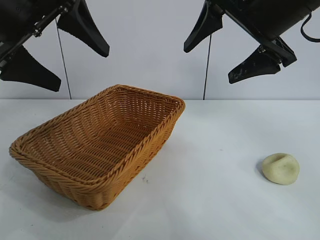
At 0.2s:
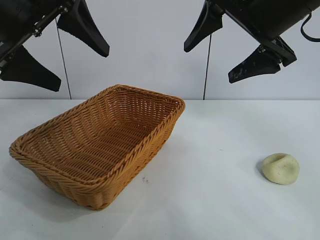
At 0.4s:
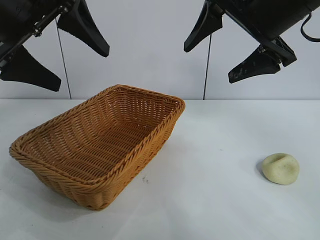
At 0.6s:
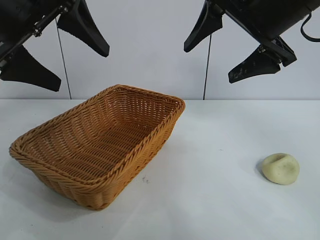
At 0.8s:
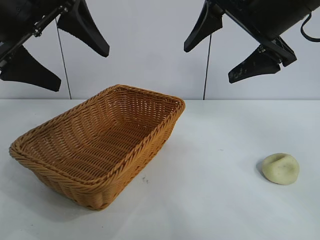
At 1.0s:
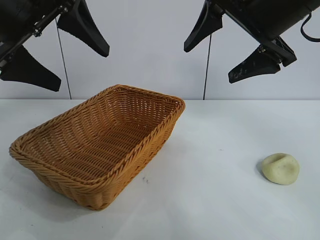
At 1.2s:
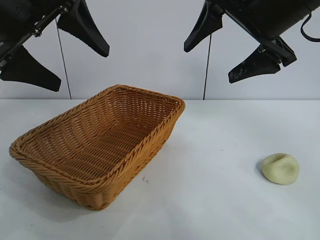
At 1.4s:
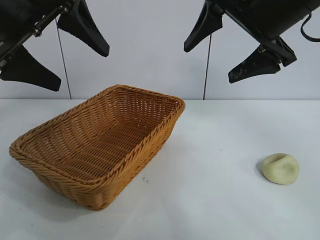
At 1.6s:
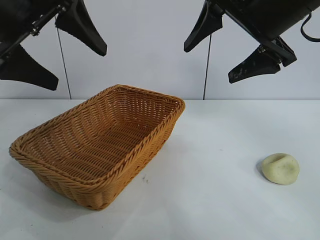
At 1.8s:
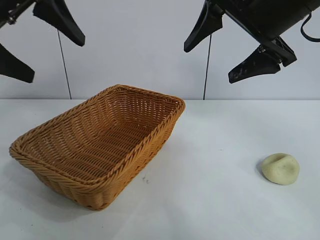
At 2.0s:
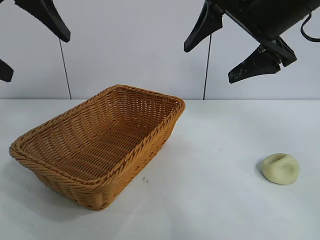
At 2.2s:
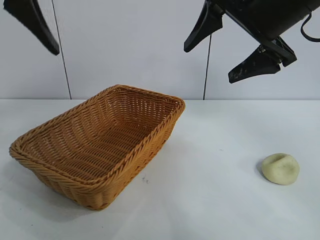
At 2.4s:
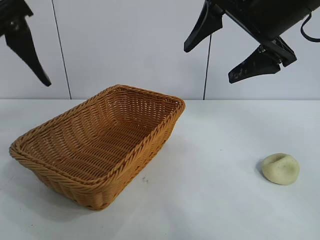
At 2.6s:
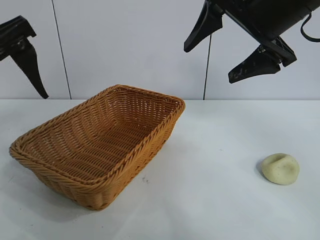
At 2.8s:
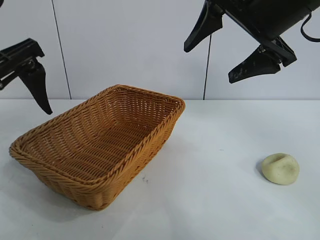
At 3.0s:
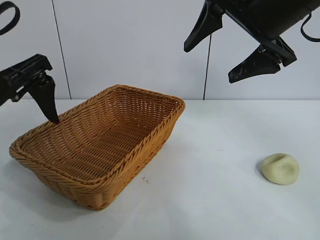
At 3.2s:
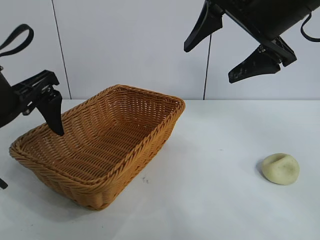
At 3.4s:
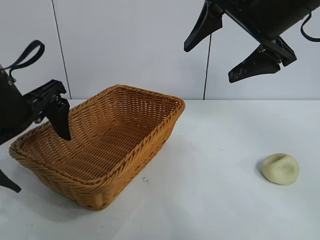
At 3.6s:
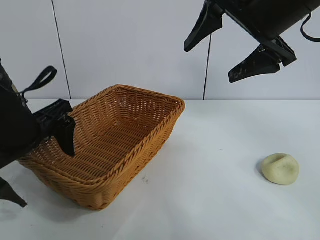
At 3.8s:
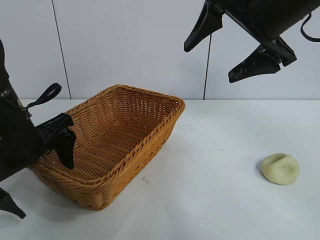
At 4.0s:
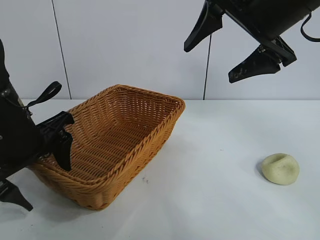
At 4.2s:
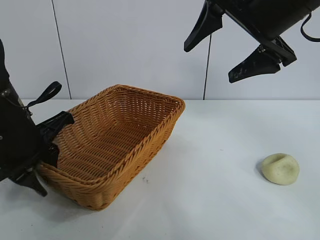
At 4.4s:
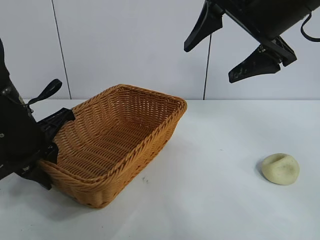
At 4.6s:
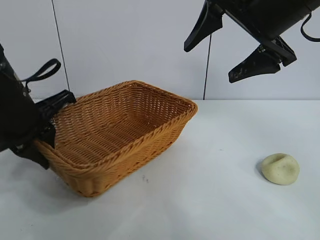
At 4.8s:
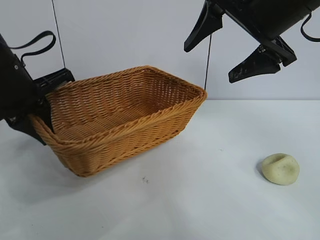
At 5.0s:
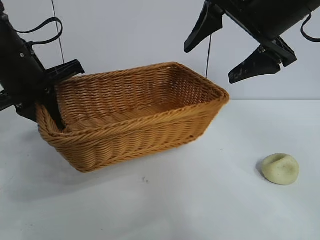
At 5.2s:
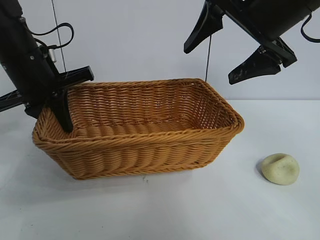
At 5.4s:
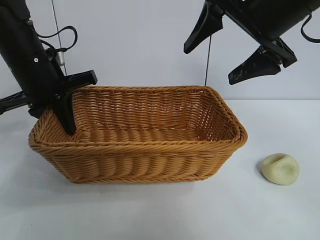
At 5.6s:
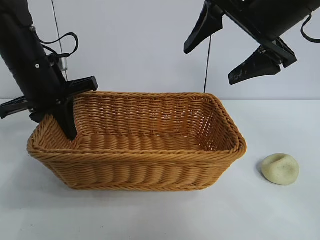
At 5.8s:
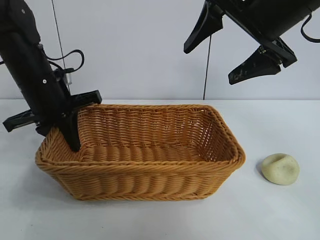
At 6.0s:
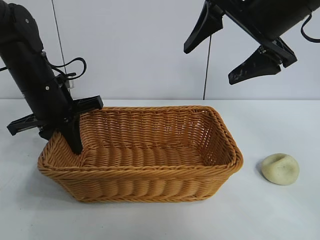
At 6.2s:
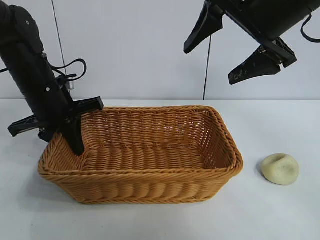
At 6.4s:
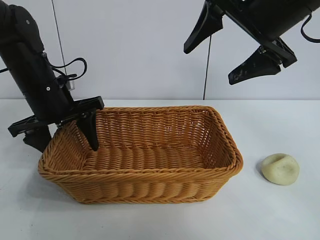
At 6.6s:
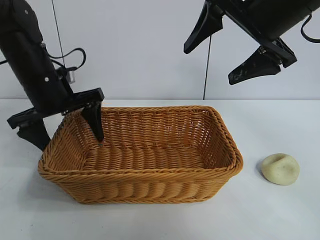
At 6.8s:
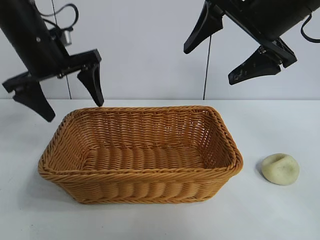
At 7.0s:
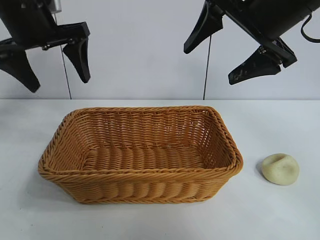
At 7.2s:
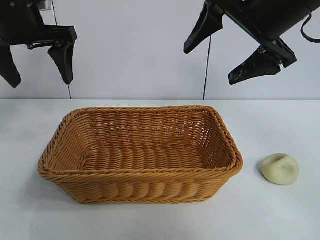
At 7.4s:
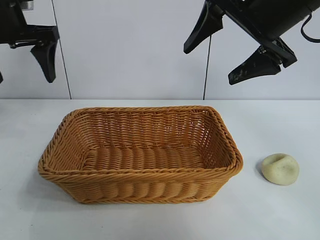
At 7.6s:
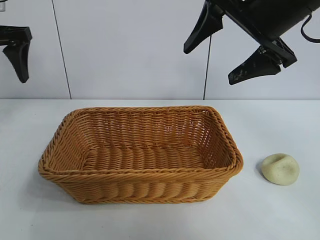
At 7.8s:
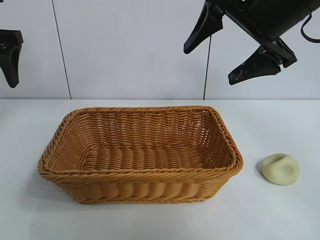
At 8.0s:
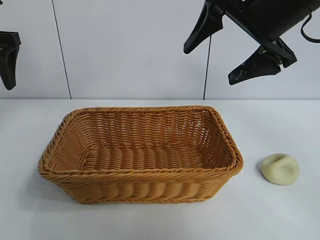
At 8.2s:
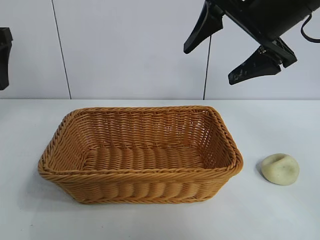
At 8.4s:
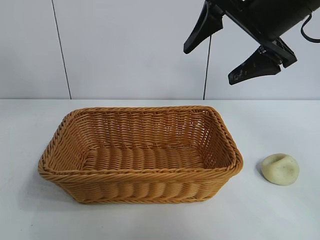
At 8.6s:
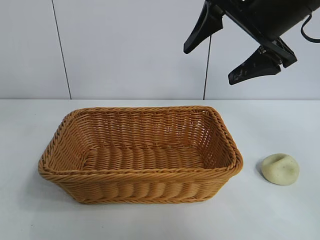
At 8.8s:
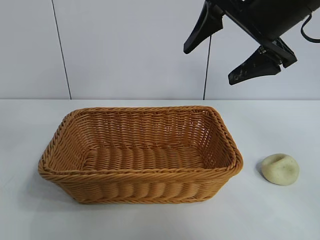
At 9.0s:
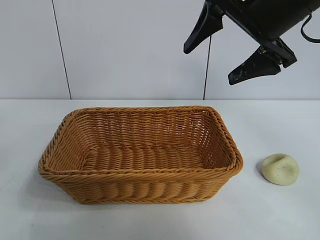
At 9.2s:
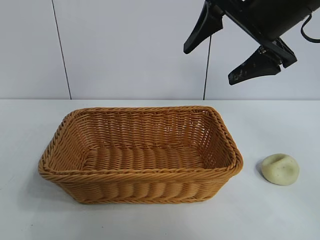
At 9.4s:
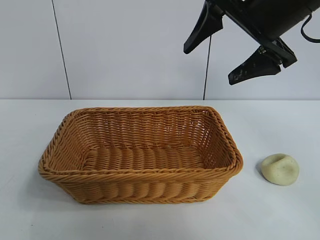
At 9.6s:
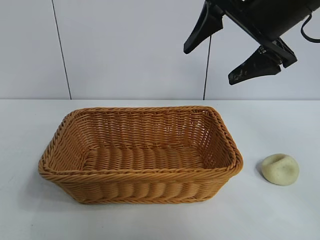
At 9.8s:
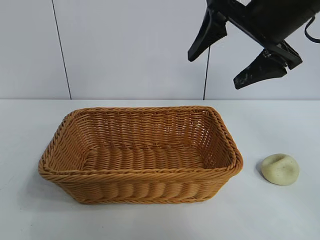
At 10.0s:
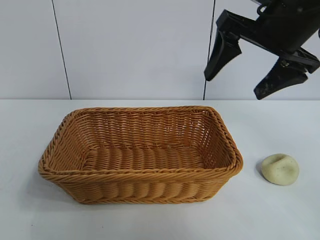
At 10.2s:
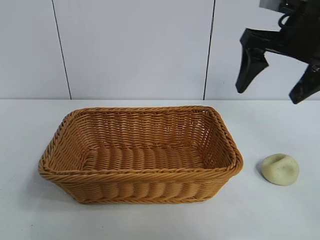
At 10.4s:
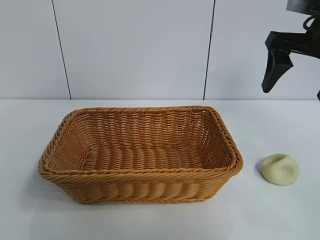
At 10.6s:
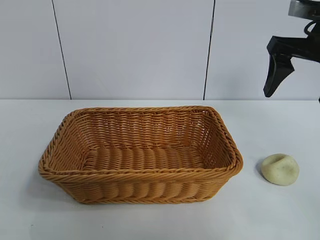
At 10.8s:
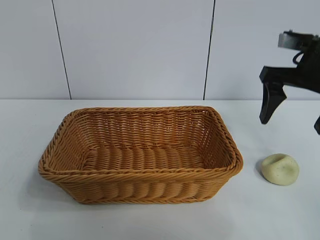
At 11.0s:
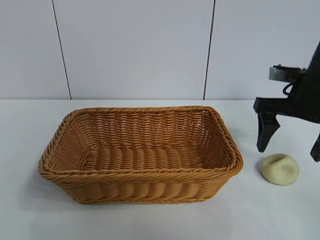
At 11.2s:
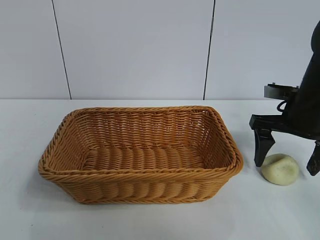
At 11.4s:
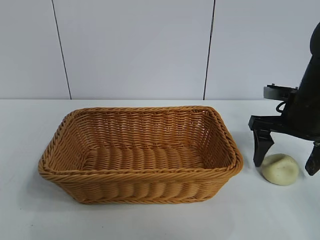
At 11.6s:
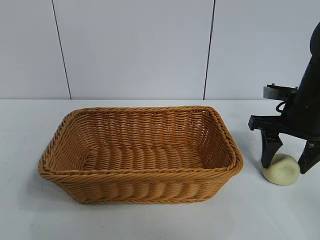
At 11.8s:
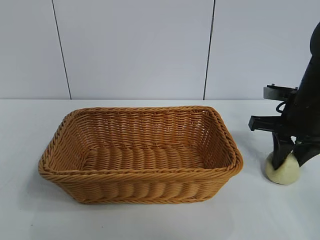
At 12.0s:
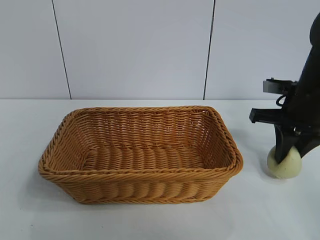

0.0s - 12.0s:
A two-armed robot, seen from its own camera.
Task of the whole recording: pick up the egg yolk pastry and put it into the basket.
Step, 1.6s - 4.2s: Grasp the basket with left gripper.
Step, 4.4s - 6.4s: Place the basket in the center of view with left gripper.
Step, 6.6s - 11.8s: Grasp egg yolk pastry with right gripper.

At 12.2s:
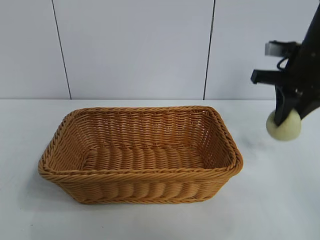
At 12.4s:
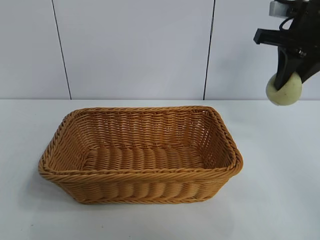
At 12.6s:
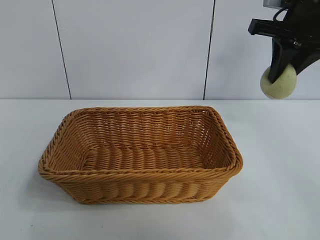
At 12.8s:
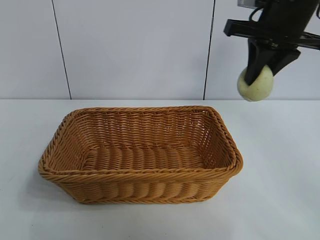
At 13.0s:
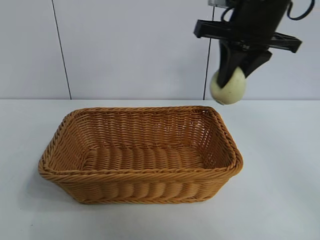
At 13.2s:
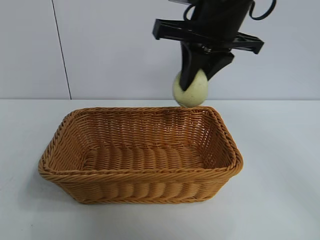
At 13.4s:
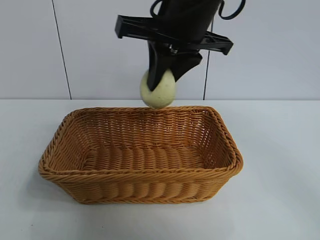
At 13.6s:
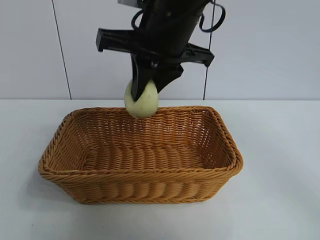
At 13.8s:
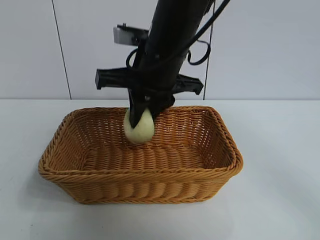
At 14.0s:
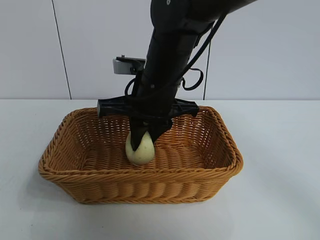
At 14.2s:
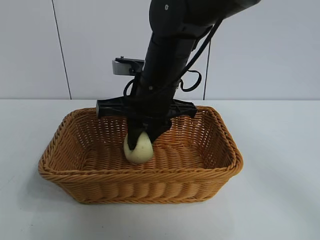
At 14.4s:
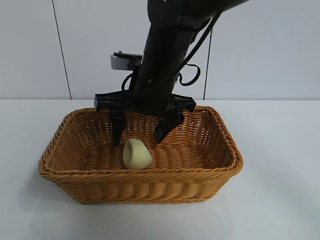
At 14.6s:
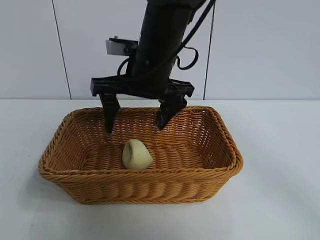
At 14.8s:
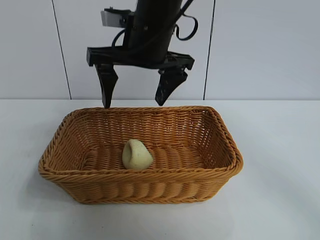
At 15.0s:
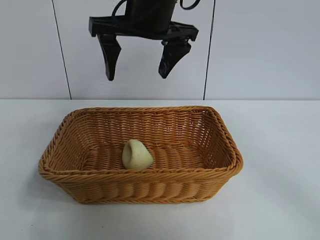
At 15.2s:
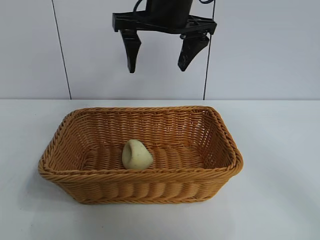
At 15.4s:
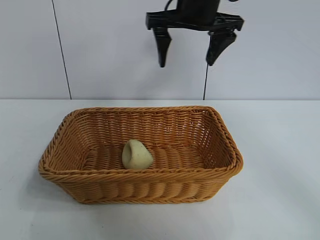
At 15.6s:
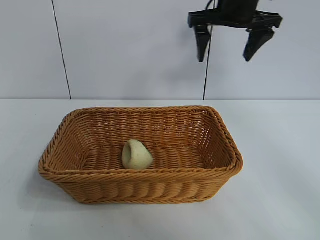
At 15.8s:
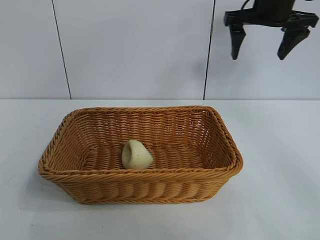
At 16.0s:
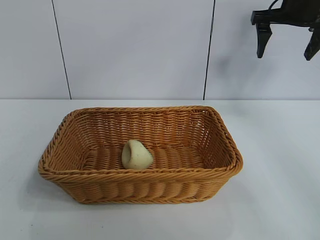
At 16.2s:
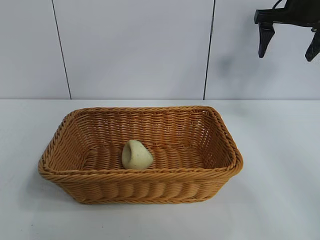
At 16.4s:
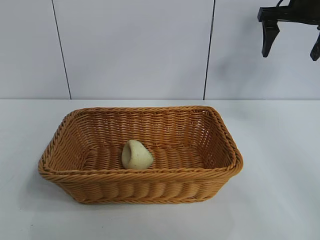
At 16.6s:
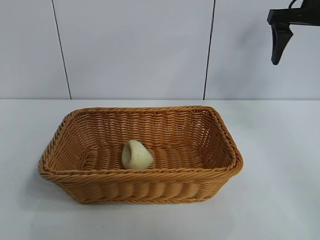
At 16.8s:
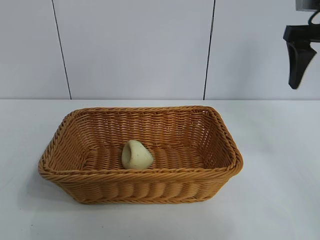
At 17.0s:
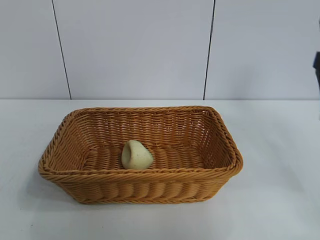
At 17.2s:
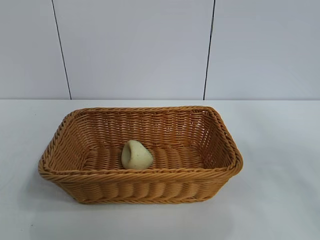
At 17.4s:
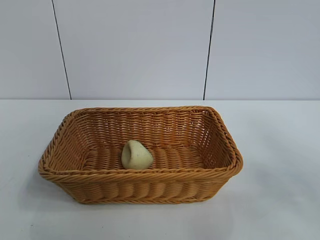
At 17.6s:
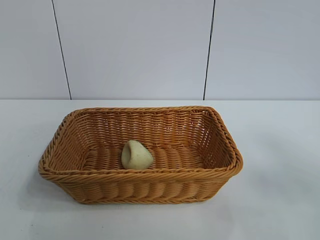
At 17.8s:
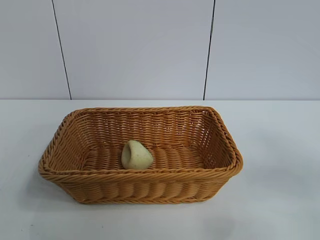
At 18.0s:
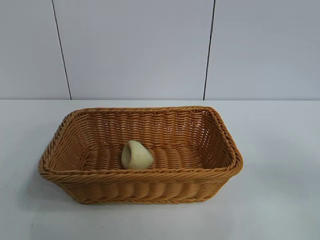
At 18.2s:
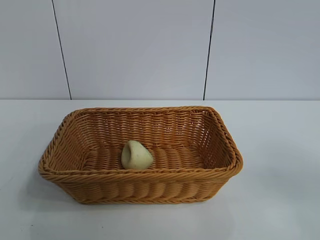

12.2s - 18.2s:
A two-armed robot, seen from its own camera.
Task of the whole recording: pick up the egg yolk pastry and put it into the basket.
Step, 12.2s - 14.2s: Place the egg yolk pastry in the basket with right gripper.

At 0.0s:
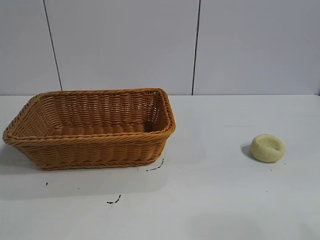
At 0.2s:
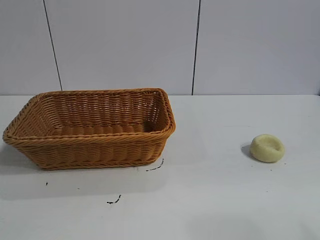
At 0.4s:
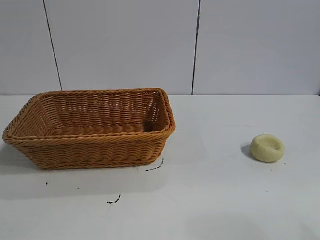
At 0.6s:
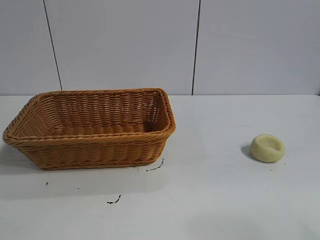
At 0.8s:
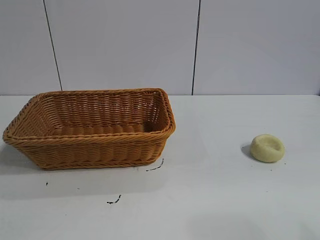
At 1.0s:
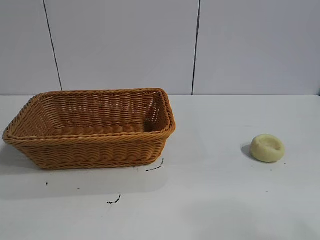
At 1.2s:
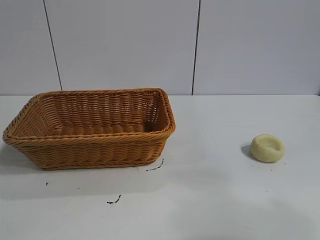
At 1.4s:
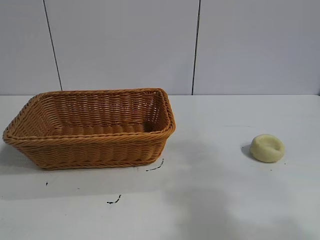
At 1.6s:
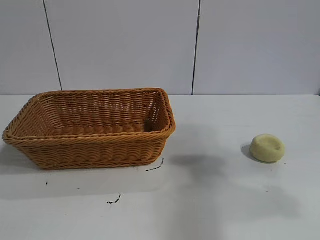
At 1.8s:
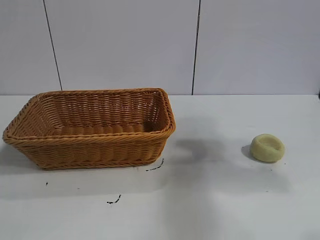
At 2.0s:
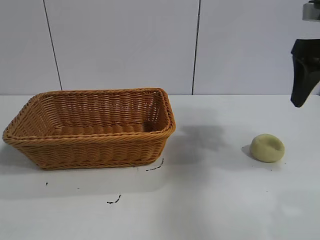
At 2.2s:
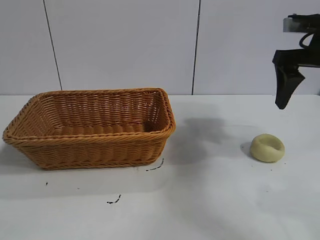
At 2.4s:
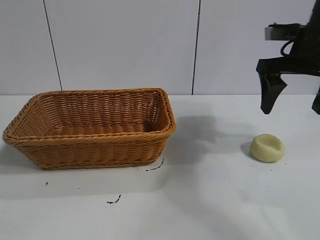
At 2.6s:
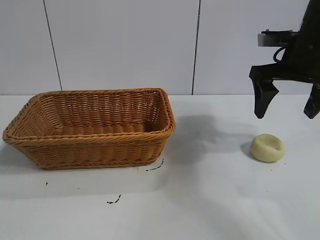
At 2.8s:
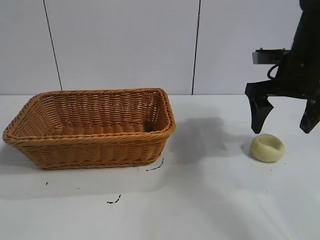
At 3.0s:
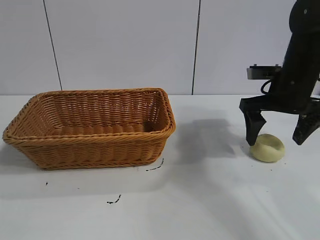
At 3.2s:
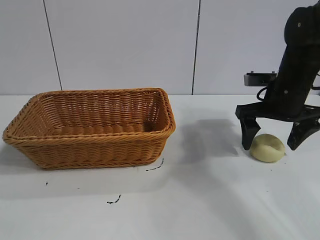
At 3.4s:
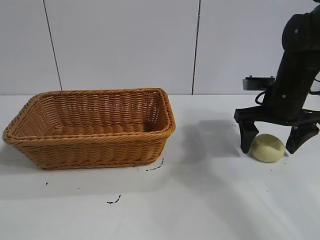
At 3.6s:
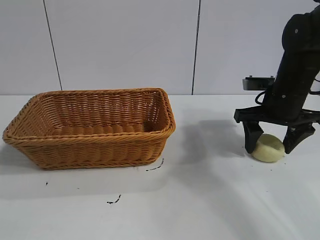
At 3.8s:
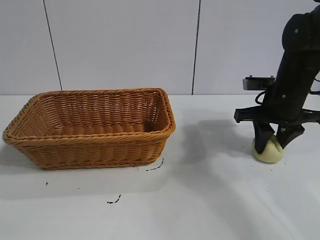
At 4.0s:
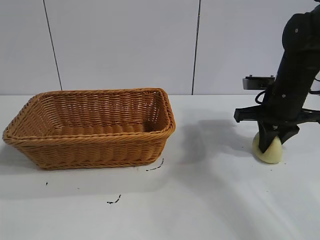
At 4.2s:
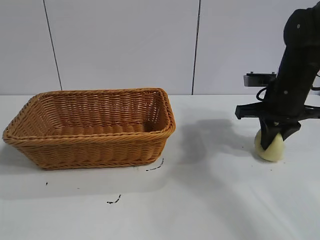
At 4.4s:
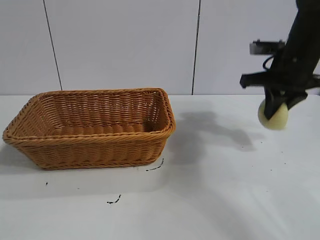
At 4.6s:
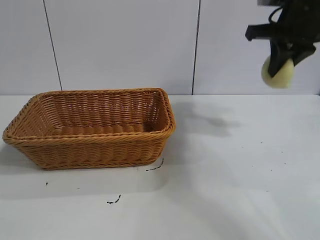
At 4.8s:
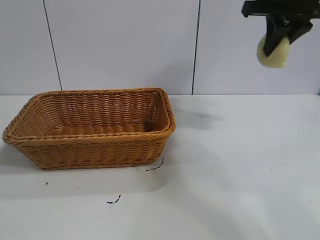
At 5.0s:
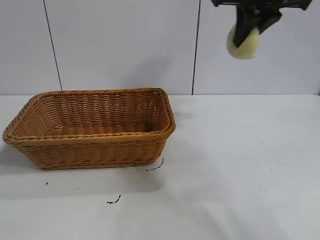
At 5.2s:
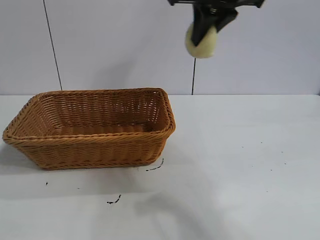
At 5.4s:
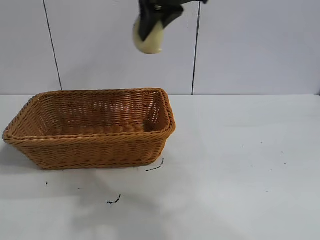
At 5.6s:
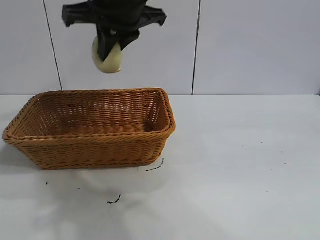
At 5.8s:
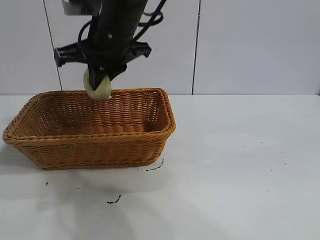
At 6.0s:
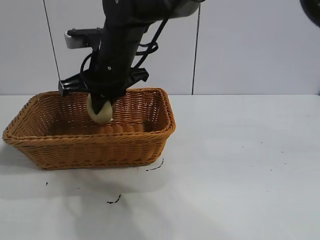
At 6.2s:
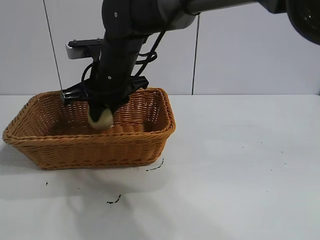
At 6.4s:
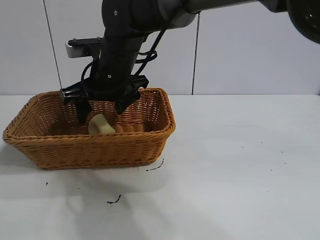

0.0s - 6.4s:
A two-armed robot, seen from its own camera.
Task of the whole recording: pick up the egg yolk pastry and put it into the basket.
Step, 1.0s - 4.0s: Grasp egg yolk pastry with right gripper.
